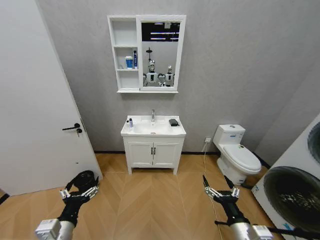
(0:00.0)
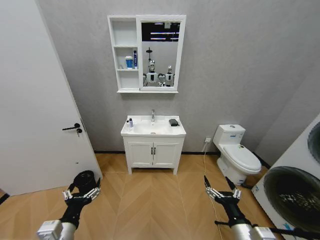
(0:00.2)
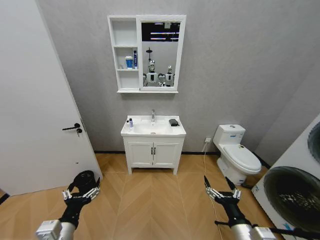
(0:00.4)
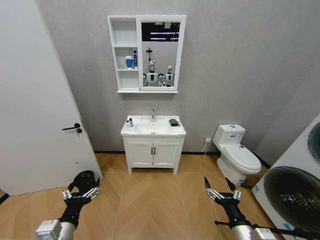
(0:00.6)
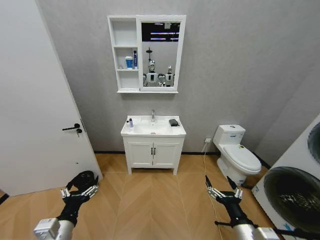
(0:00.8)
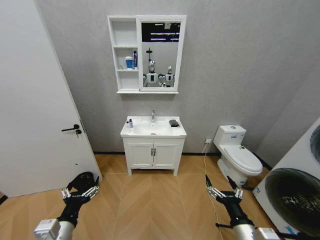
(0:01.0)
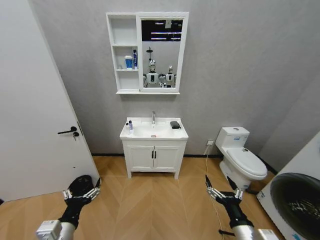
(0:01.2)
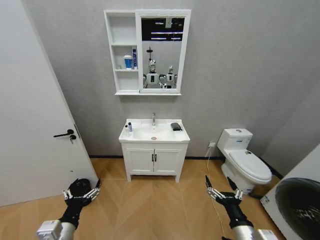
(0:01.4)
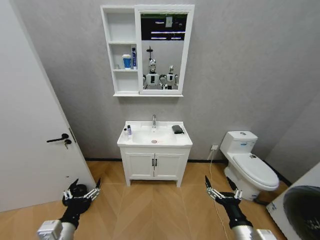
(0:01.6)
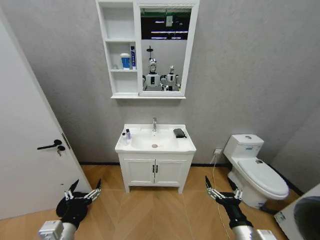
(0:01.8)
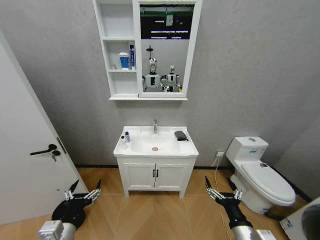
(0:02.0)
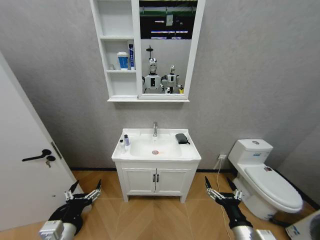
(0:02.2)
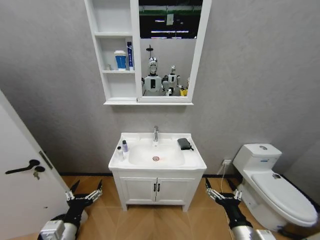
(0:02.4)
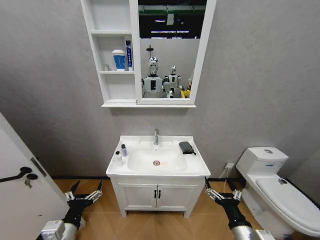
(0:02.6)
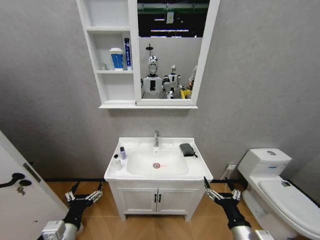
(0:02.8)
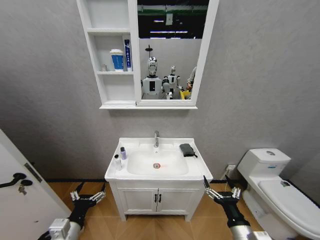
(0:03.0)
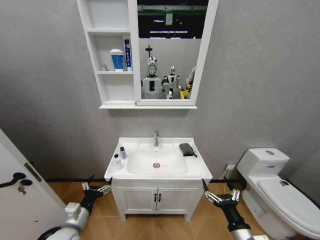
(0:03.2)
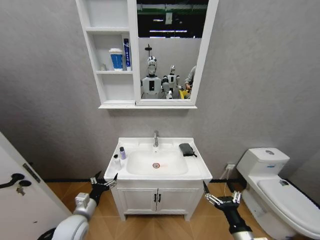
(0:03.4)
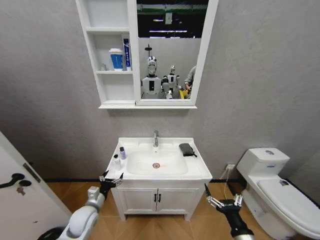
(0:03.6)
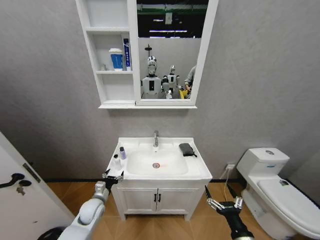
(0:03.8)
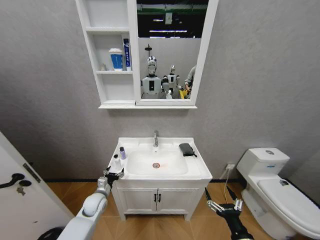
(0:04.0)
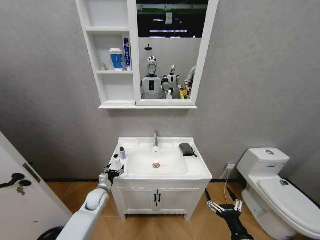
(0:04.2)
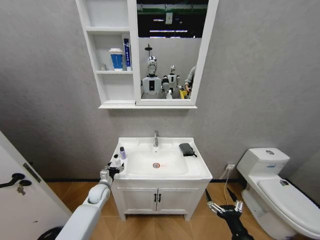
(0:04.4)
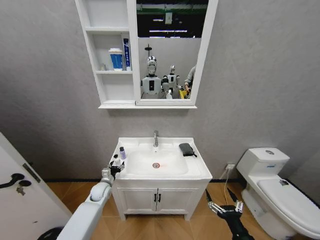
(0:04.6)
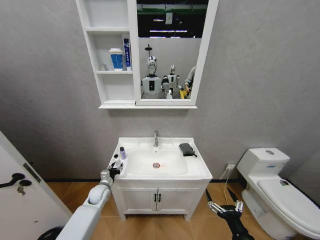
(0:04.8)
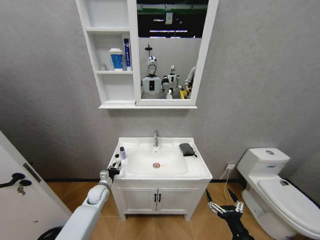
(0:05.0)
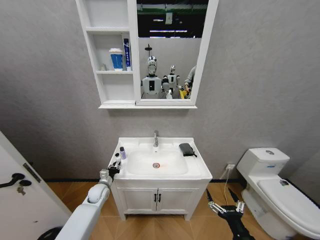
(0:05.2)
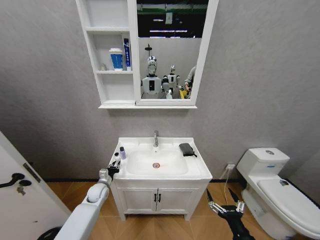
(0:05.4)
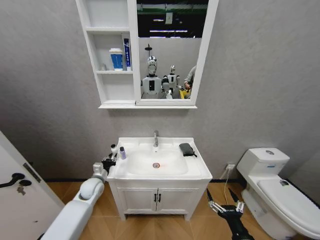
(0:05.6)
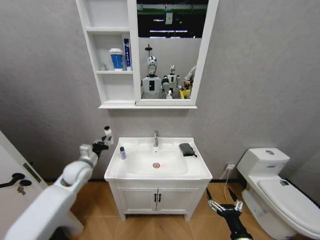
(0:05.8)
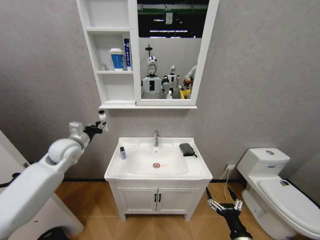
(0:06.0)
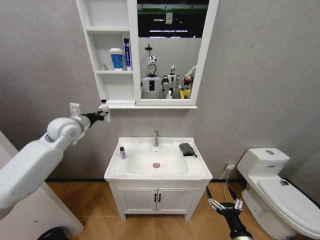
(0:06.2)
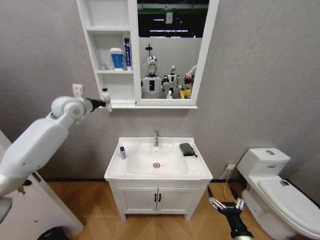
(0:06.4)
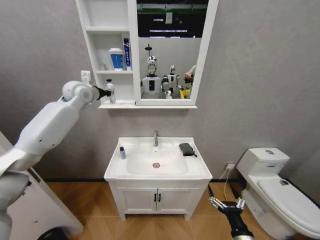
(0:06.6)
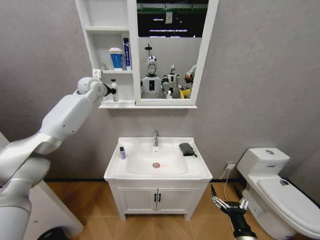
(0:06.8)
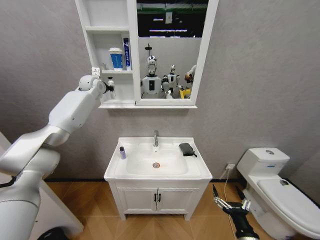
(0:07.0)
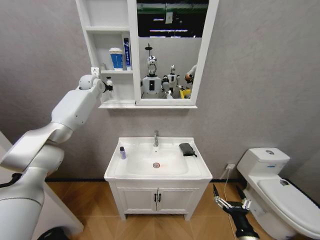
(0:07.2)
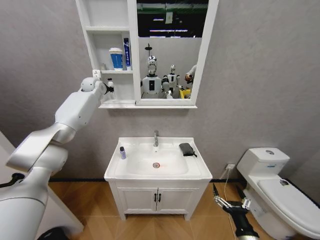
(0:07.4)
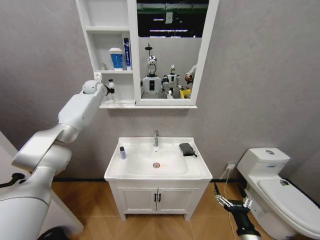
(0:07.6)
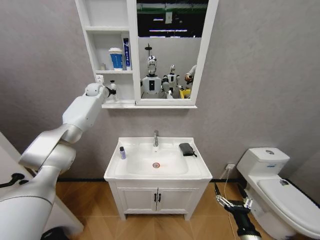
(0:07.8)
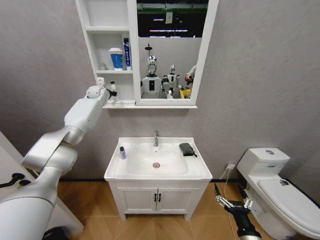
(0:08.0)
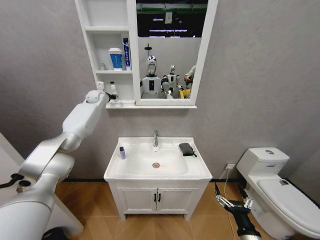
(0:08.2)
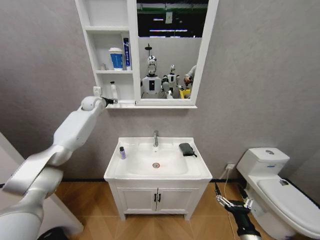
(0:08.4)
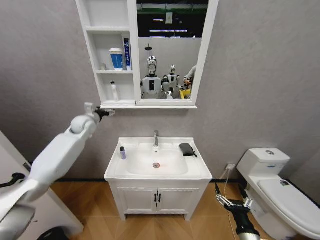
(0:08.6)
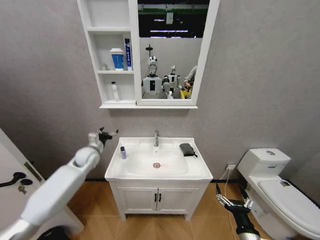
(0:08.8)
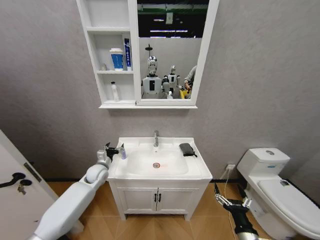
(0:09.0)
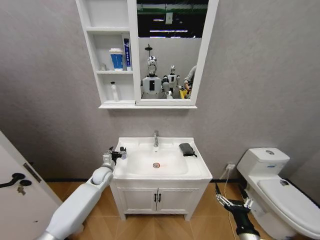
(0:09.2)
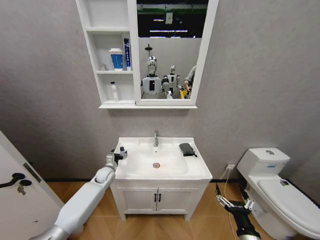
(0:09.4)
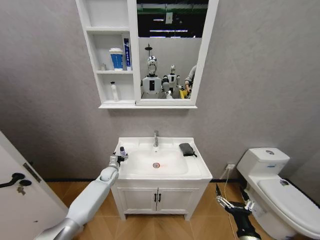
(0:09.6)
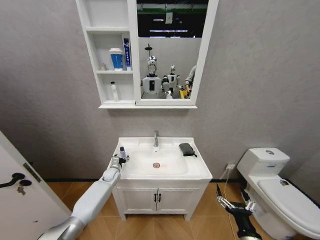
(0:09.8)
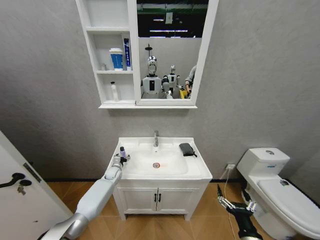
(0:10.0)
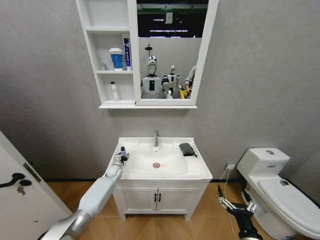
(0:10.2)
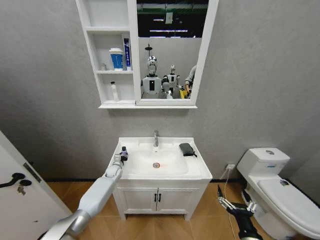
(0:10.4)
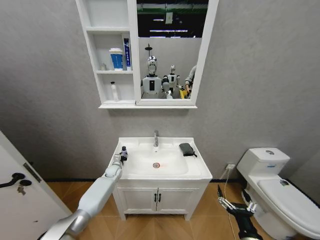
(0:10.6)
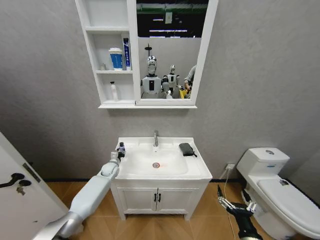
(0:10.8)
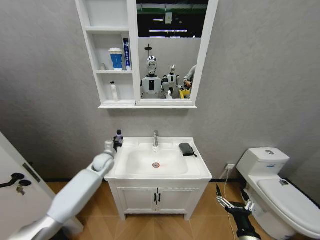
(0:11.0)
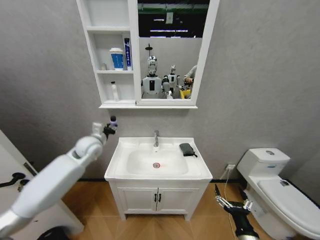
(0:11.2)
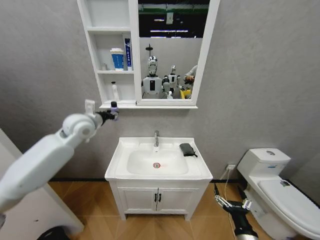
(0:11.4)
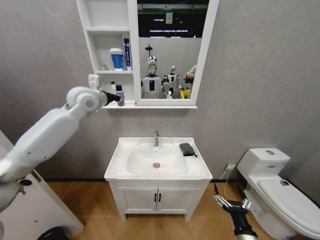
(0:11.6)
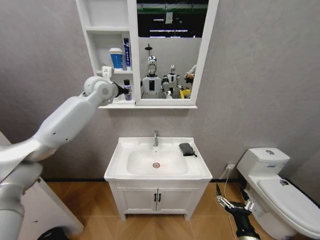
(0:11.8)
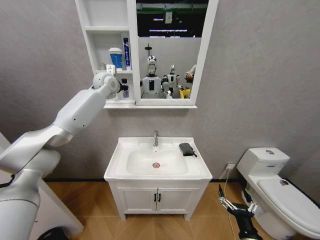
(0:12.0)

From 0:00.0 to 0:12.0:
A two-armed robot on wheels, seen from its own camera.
Task of the whole recording: Move facial cleanser and shampoo from washbasin to cabinet, then wipe washbasin with towel.
From 0:03.0 to 0:04.4: The left gripper is displaced forward and downward by about 30 cm.
From 0:04.4 to 0:06.0: The left gripper moves upward, roughly 30 cm, and closes up.
From 0:06.0 to 0:07.6: The left gripper is displaced forward and upward by some 30 cm.
From 0:07.6 to 0:09.0: The left gripper heads downward and backward, covering some 40 cm, and opens.
From 0:09.0 to 0:10.4: The left gripper goes some 15 cm downward and forward, and closes its fingers.
From 0:10.4 to 0:12.0: The left gripper goes about 50 cm upward.

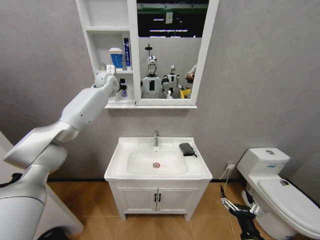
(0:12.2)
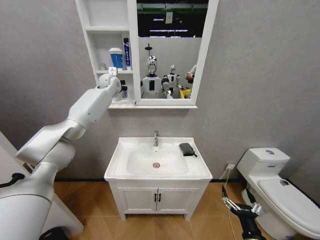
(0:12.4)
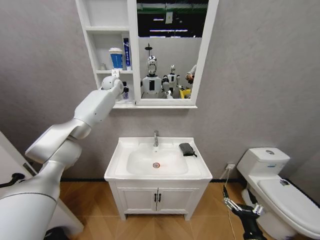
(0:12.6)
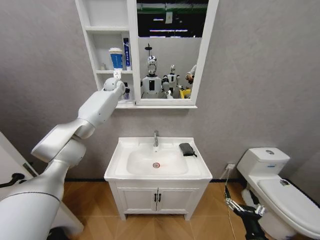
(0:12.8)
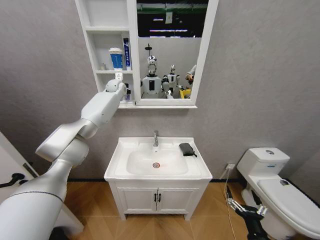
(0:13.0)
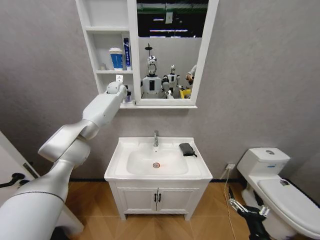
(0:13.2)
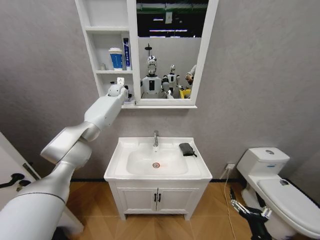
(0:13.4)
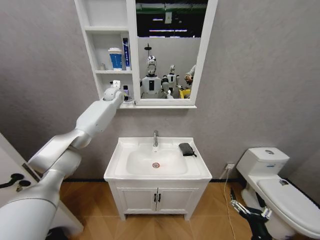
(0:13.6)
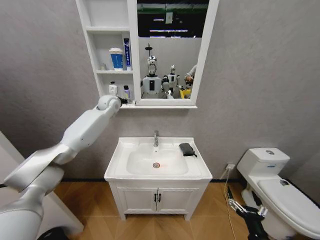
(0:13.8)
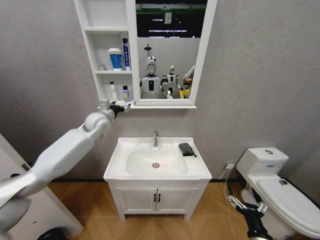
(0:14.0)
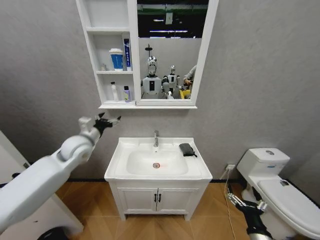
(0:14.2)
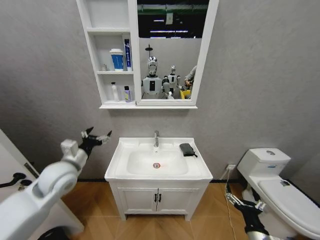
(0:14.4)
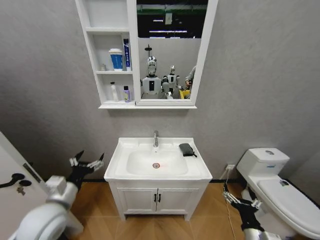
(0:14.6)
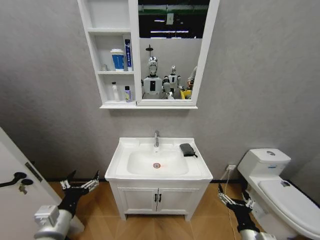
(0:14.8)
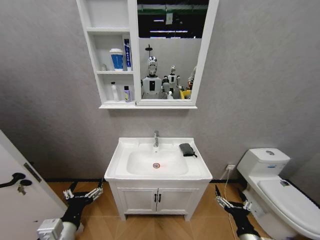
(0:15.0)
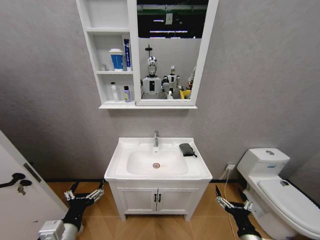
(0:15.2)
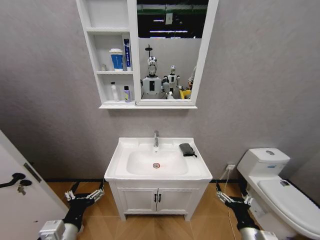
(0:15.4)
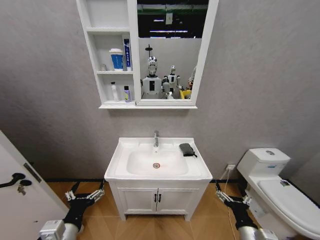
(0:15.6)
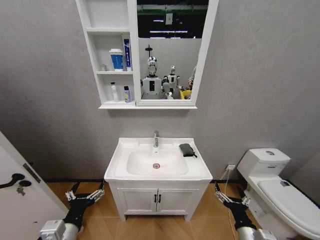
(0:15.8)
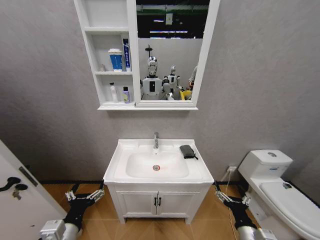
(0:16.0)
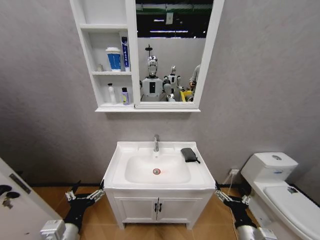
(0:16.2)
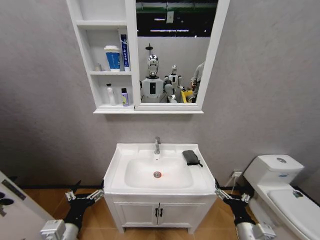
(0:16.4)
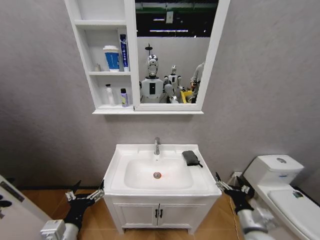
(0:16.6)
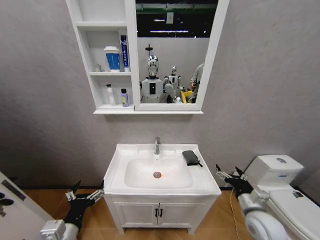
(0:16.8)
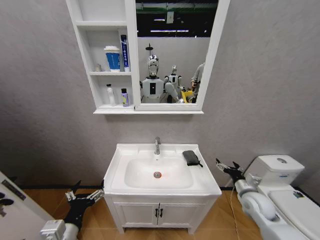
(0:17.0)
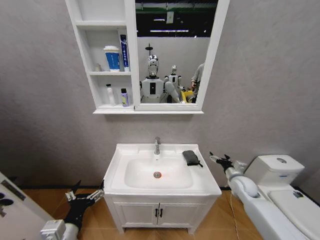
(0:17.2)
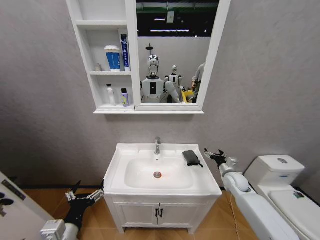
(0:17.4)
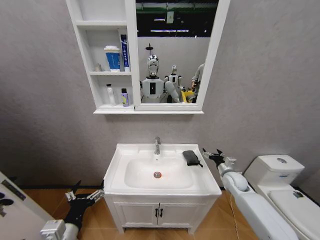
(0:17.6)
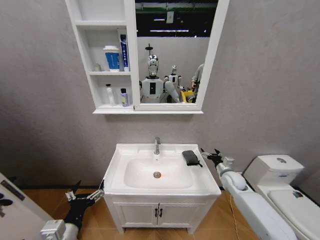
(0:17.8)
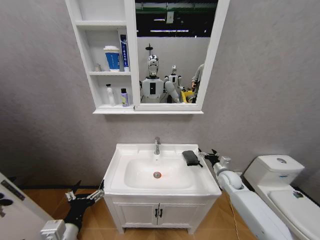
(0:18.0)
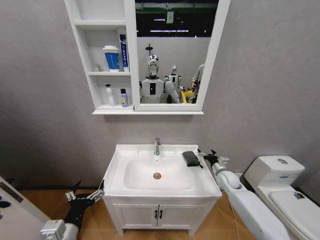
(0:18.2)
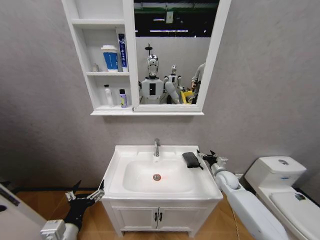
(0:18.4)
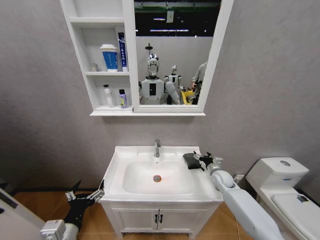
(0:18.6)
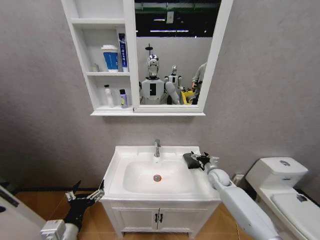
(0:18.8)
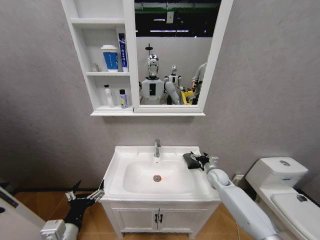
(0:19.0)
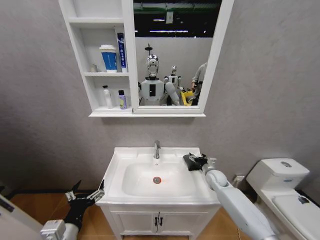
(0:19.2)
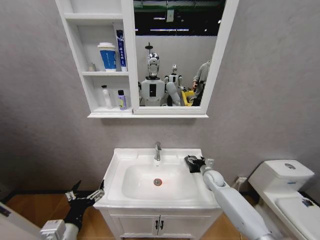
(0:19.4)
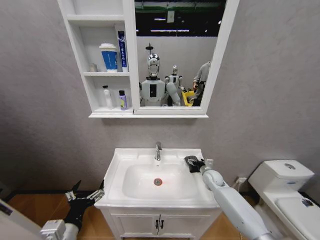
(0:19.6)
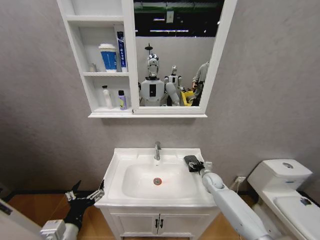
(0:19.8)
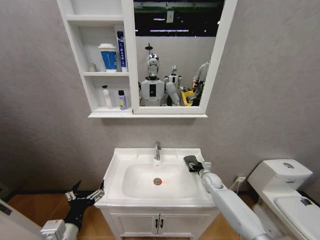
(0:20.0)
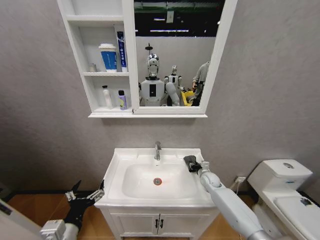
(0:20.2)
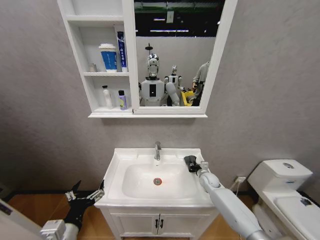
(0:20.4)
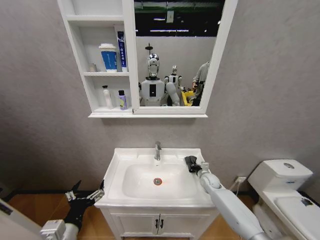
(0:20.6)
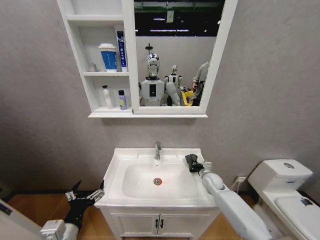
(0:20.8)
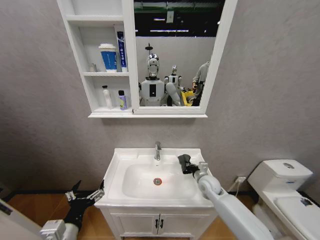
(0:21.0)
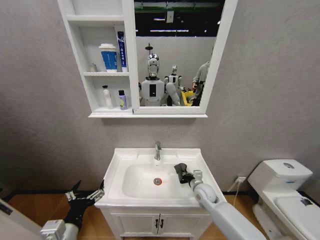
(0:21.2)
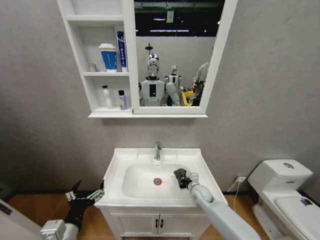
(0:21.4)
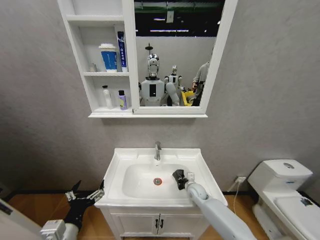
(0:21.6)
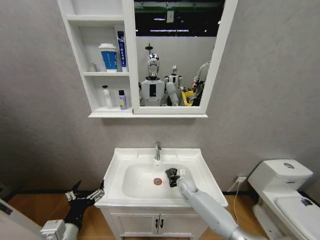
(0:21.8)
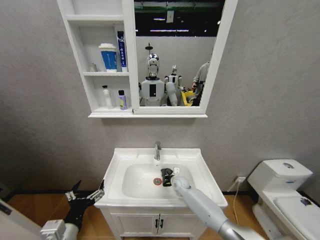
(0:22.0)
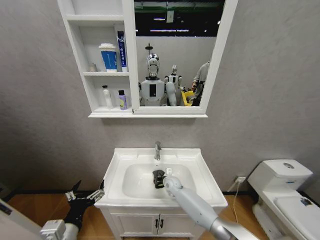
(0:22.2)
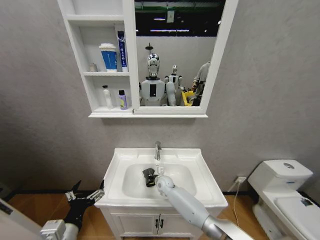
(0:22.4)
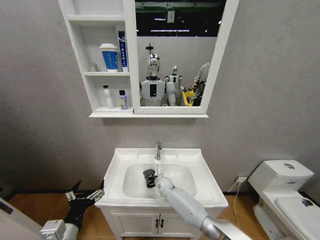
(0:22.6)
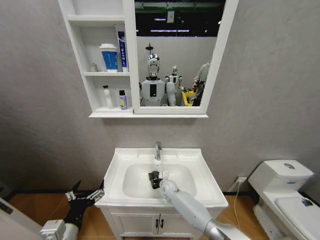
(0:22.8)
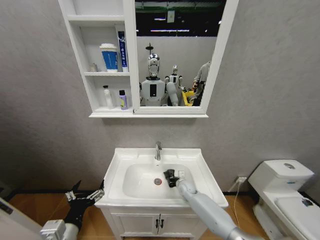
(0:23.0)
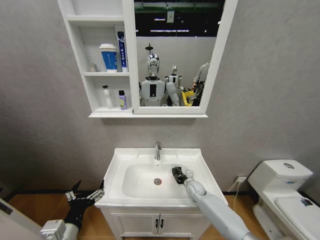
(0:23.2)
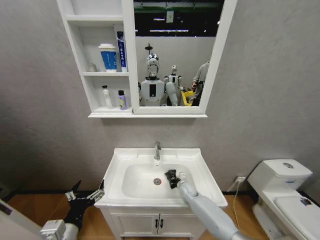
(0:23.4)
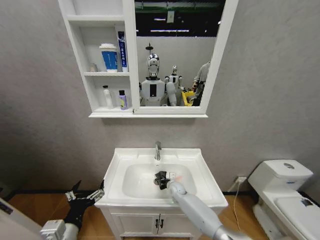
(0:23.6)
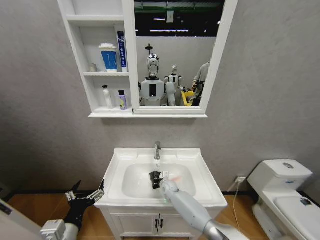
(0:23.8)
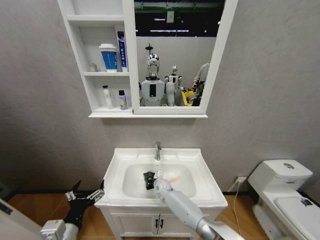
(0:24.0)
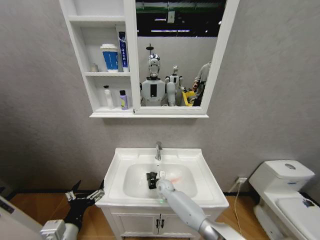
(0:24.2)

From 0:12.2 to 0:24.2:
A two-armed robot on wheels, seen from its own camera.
Task of the whole recording: Move facial cleanser and shampoo from washbasin to cabinet, then wipe washbasin with towel.
From 0:12.2 to 0:13.8: The left gripper travels downward by some 10 cm, and opens.
From 0:13.8 to 0:15.2: The left gripper goes approximately 60 cm backward and downward.
From 0:15.2 to 0:16.6: The right gripper shifts about 5 cm forward.
From 0:16.6 to 0:18.2: The right gripper heads forward, covering about 25 cm.
From 0:18.2 to 0:19.8: The right gripper is displaced to the left by some 5 cm.
From 0:19.8 to 0:21.2: The right gripper travels to the left and backward by approximately 10 cm, and closes its fingers.
From 0:21.2 to 0:22.6: The right gripper is displaced to the left and forward by about 20 cm.
From 0:22.6 to 0:24.2: The right gripper goes to the right and returns, roughly 20 cm each way.
